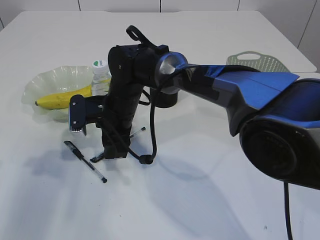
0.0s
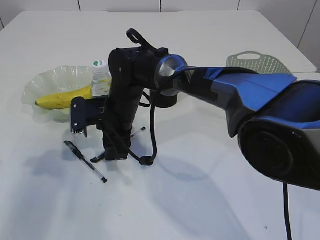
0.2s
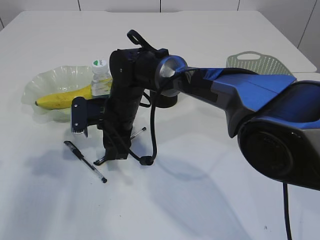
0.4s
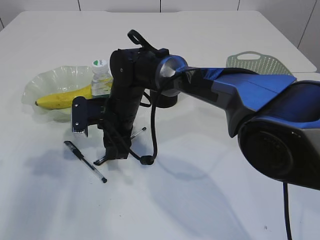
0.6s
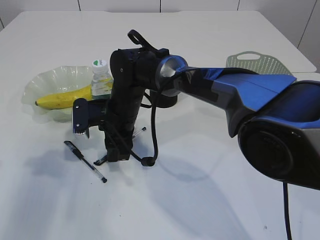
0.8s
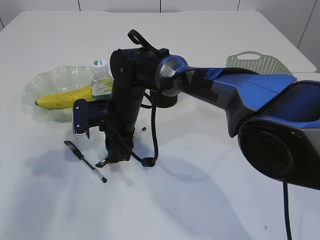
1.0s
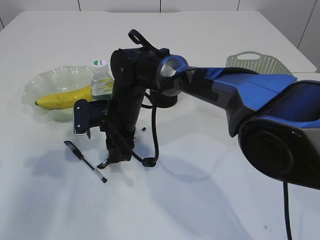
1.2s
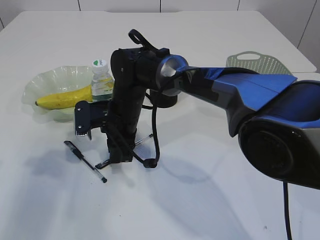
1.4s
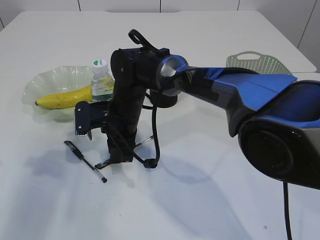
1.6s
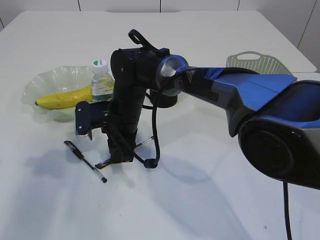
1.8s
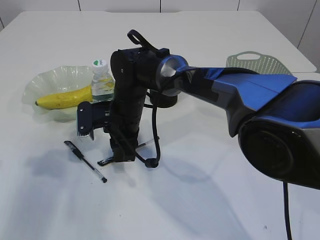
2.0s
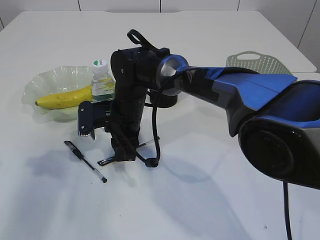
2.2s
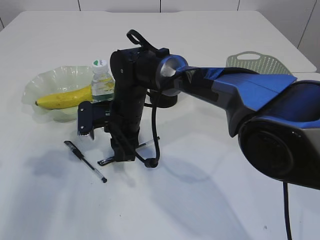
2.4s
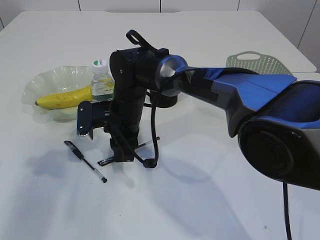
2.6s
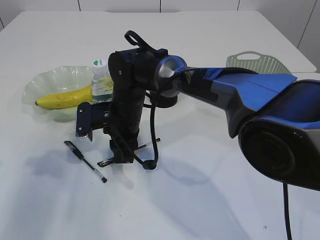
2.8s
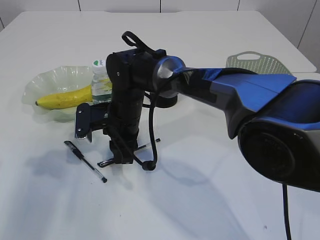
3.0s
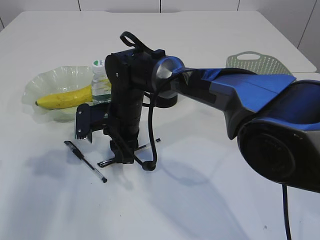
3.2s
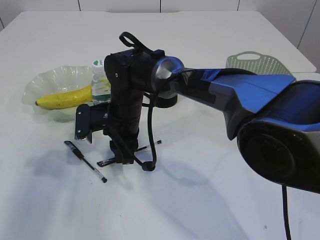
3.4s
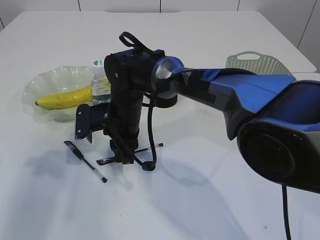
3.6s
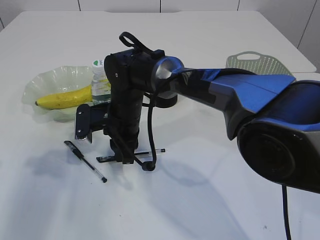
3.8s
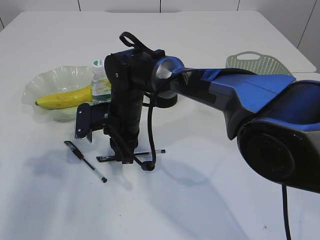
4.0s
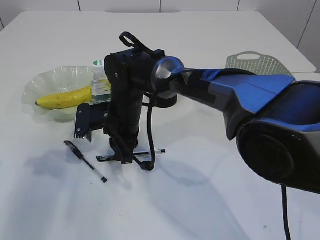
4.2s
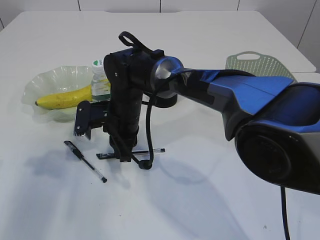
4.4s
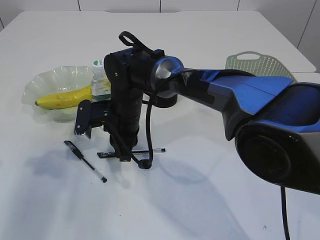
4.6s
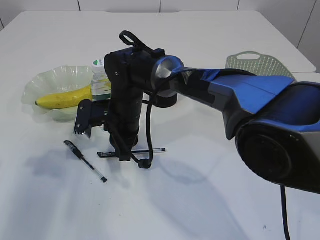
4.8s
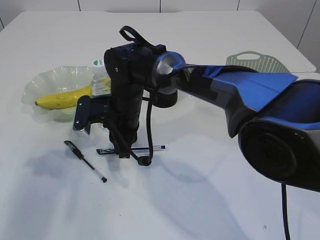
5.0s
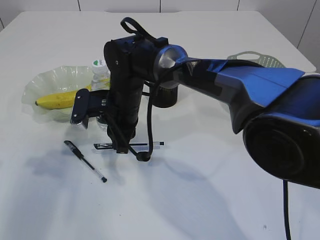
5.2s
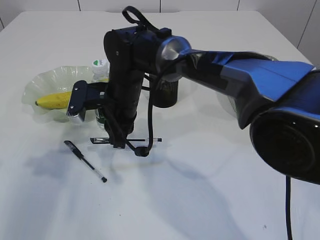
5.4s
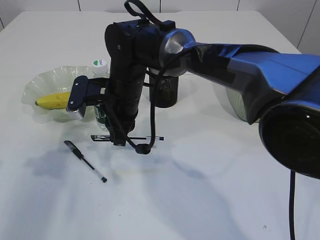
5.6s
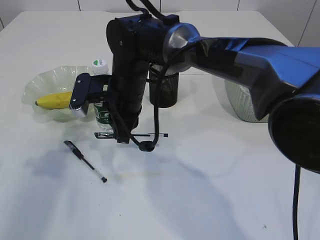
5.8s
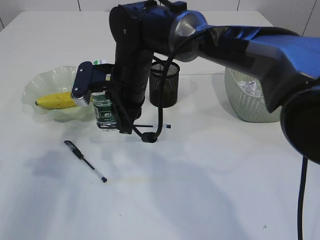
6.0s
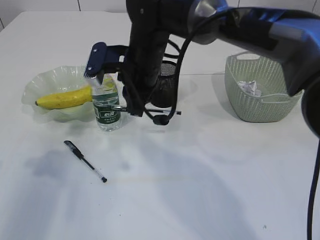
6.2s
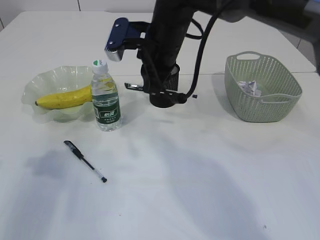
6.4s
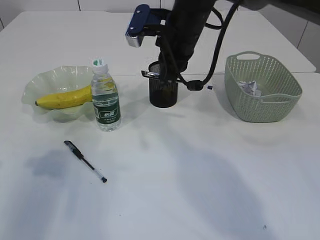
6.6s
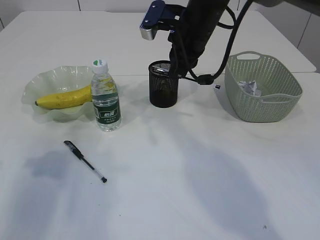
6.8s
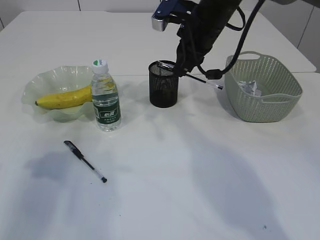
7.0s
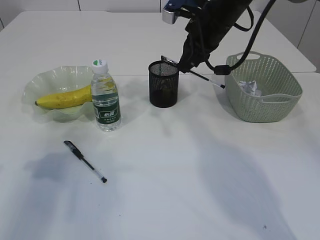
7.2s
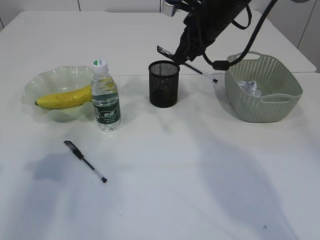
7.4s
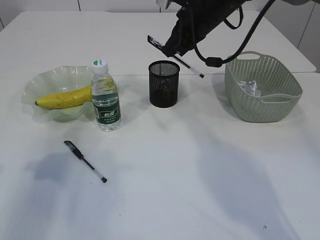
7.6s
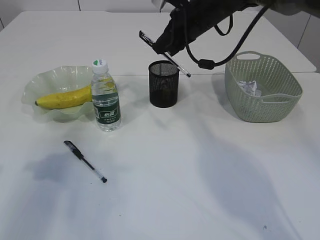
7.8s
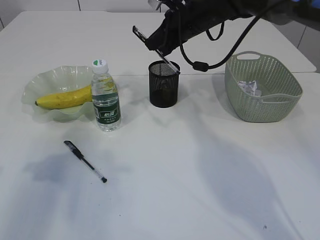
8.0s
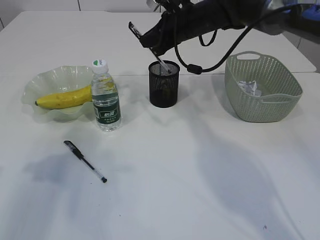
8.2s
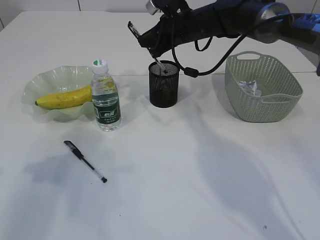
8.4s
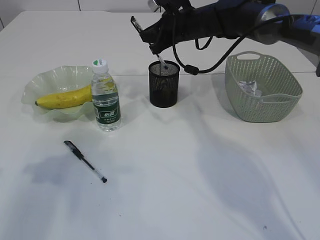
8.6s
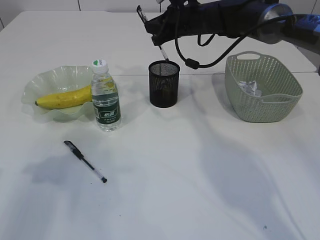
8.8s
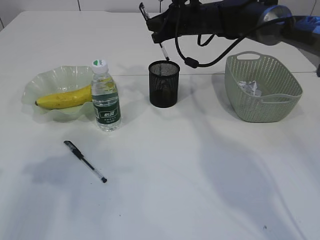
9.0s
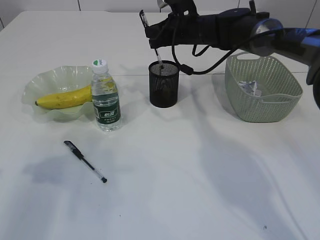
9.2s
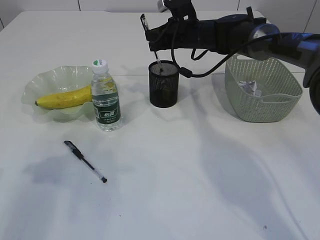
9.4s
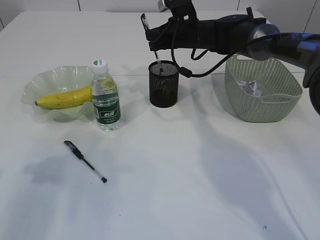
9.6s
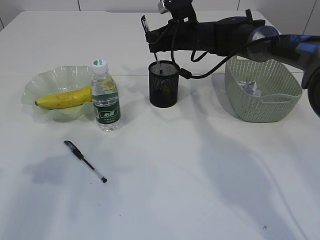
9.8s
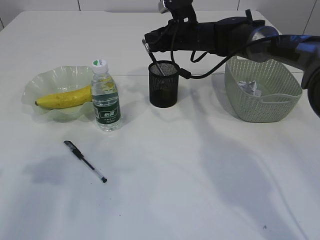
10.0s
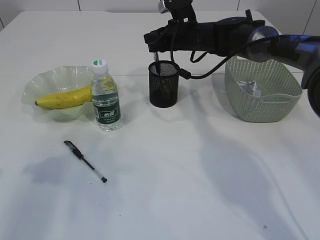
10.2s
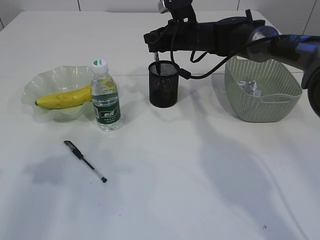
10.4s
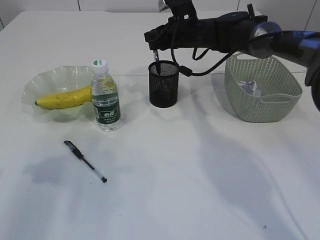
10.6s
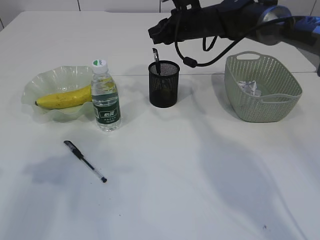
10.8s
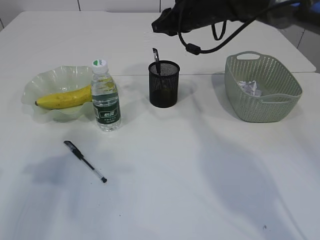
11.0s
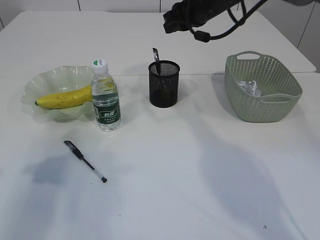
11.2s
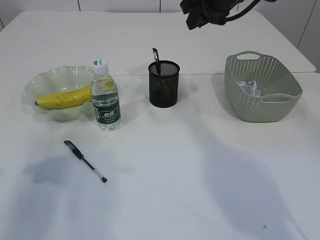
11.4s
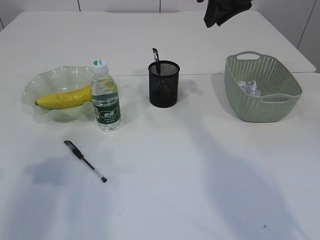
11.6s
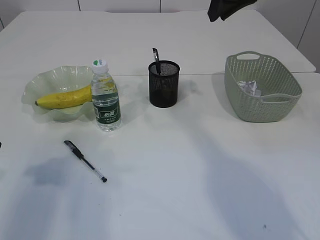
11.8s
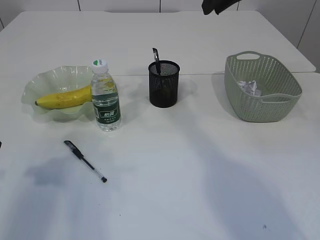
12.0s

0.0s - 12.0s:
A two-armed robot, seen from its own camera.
Step, 0.0s - 5.6s: Pick up the pen with right arm.
Step, 5.8s - 11.0s: Place the pen into the pen holder.
0.0s - 1.6s: Neither gripper changes place.
1.6s - 3.0s: There are only small adjustments of the grippers.
3.0s - 4.4s: Both grippers stay put.
4.4s - 6.0s: The right gripper moves upward, some 10 cm.
6.0s - 7.6s: The right gripper shifts roughly 20 cm to the right, forward and upward.
7.6s - 9.0s: The right gripper travels forward by approximately 5 cm.
9.0s - 10.4s: The grippers move only a little.
10.4s - 12.0s: The right gripper heads upward and backward, covering roughly 20 cm.

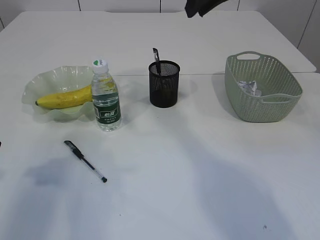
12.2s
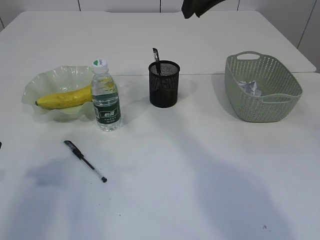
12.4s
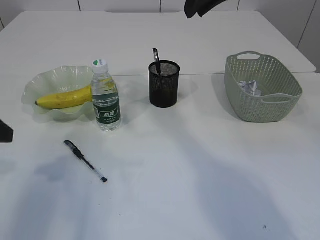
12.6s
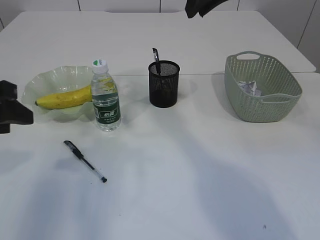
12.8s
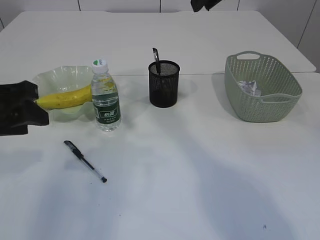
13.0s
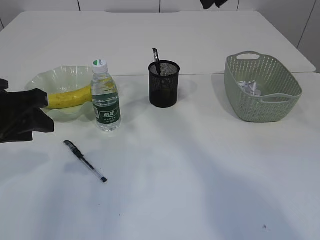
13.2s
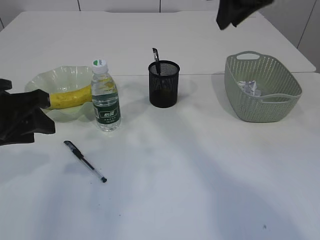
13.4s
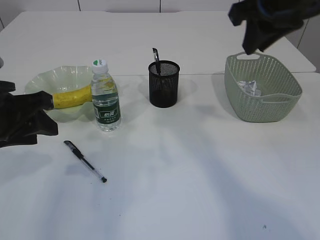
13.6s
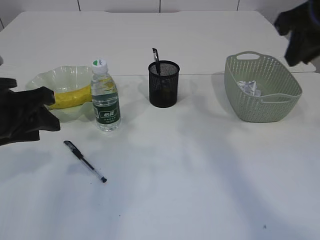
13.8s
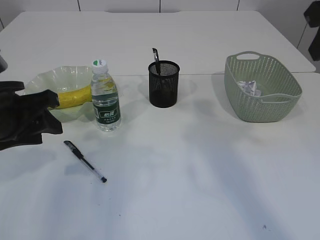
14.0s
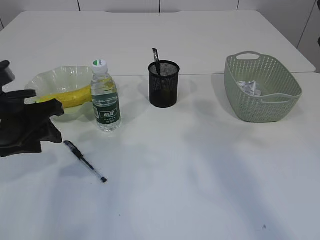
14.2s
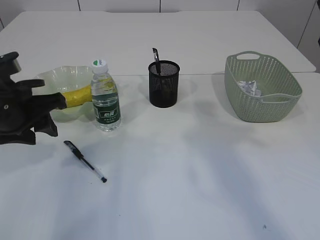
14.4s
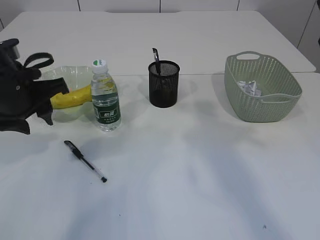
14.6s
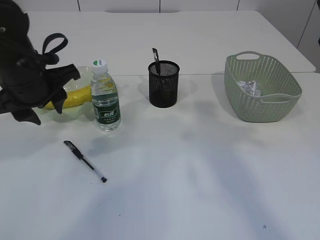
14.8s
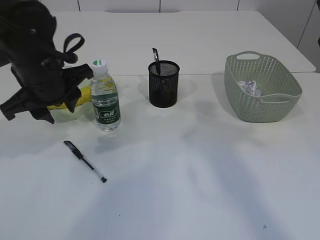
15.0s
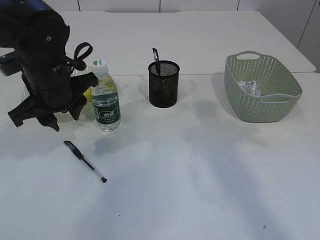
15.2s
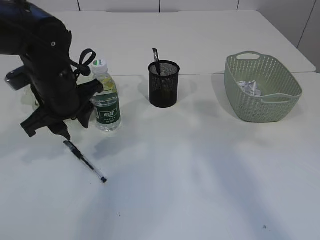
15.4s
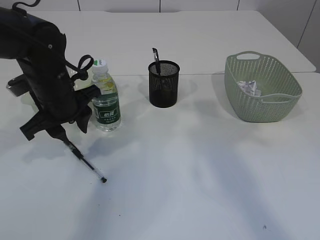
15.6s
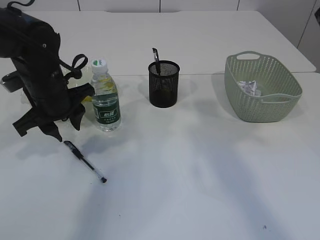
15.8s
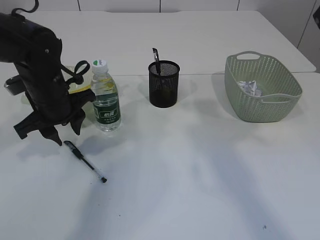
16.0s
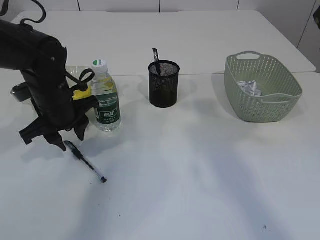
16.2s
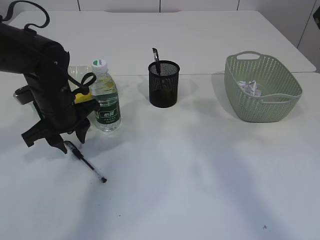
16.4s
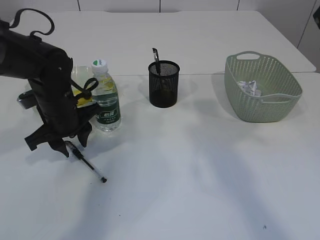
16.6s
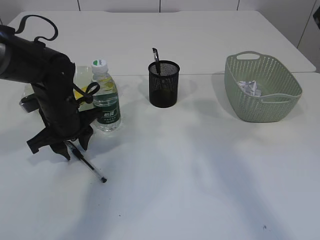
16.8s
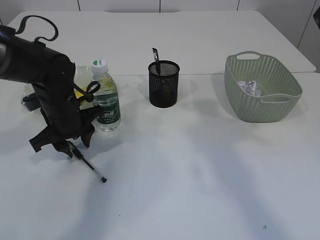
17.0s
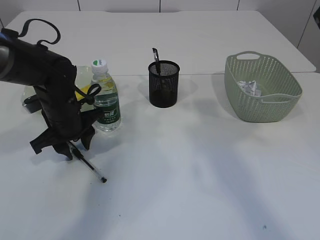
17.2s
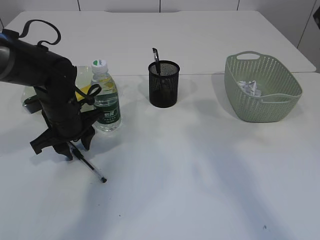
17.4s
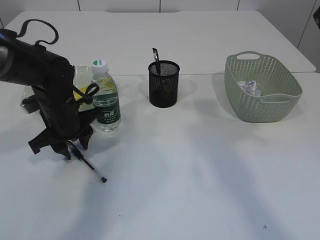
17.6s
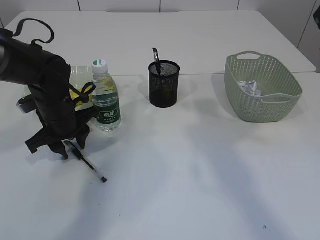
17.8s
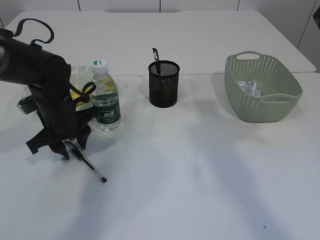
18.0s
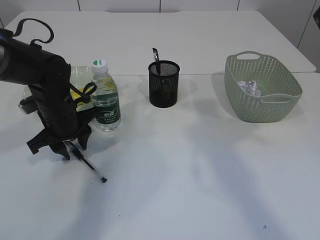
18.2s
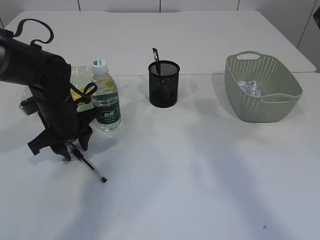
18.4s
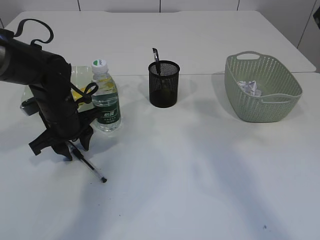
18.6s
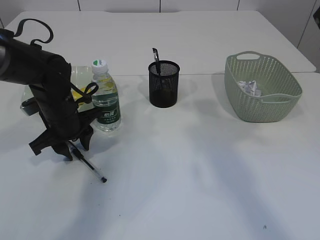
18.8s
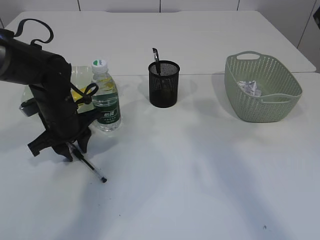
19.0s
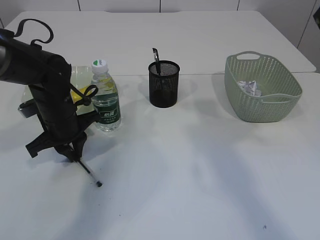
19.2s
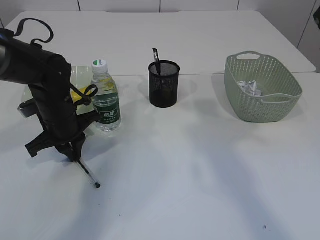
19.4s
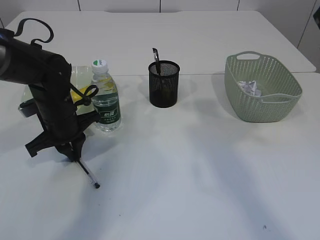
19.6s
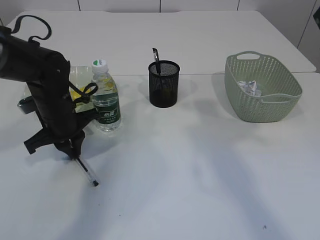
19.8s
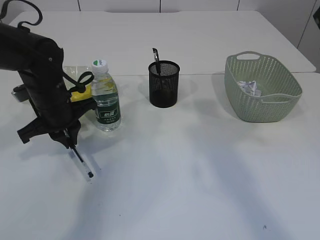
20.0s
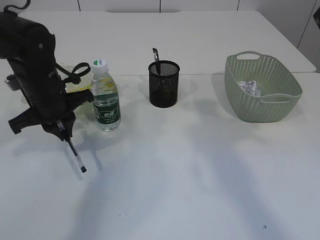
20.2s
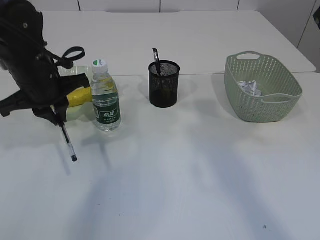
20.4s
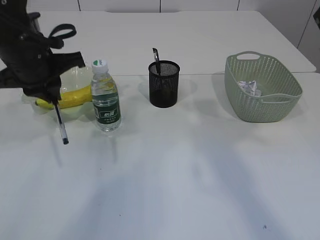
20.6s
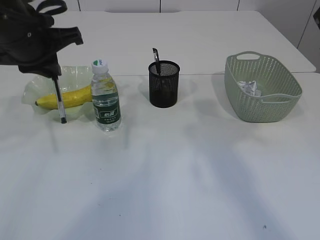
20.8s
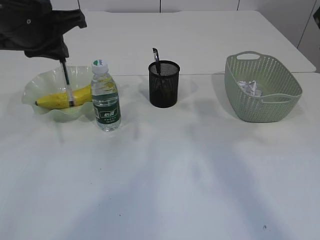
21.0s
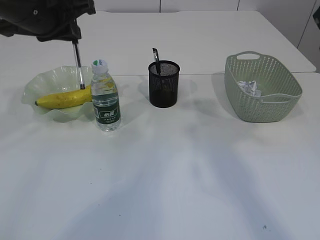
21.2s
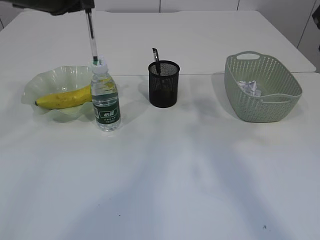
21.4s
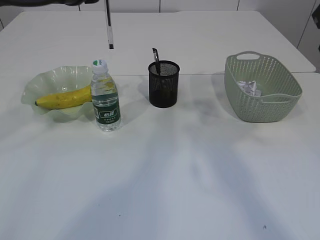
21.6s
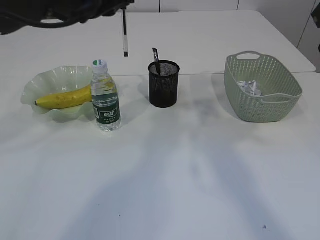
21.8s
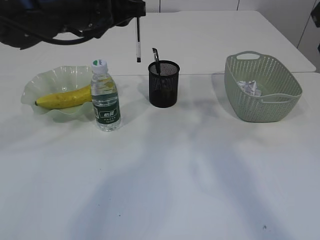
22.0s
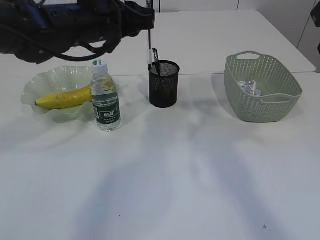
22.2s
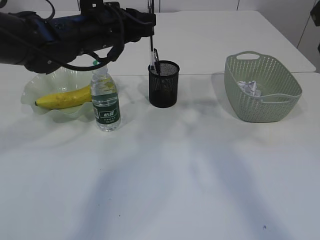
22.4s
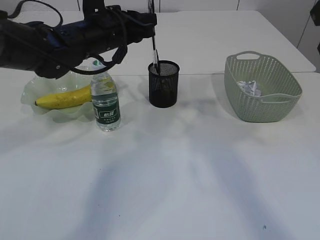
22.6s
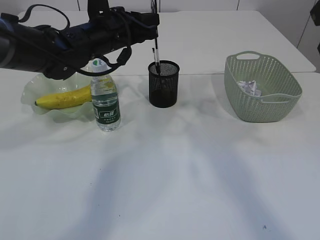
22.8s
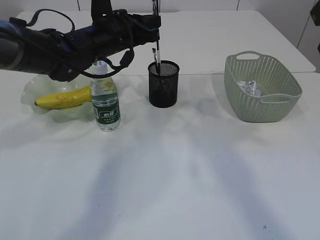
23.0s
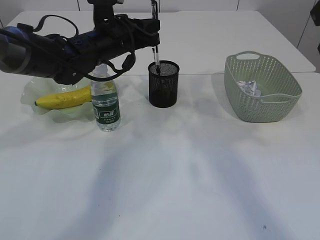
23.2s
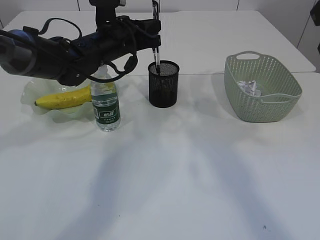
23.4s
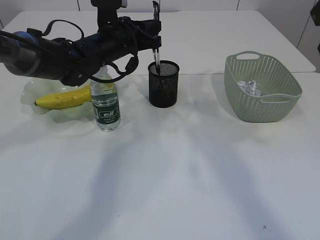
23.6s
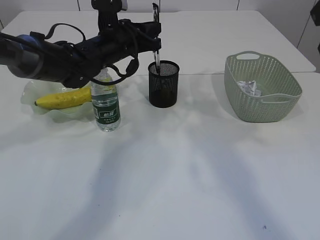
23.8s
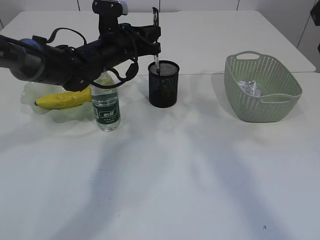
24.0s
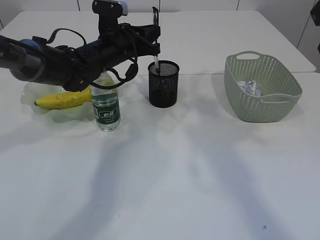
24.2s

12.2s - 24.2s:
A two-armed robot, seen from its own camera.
Step, 12.2s - 20.4s: Pick up the pen with left arm.
12.2s - 13.8s: The right gripper travels to the right and backward by approximately 15 cm; the left gripper shifts approximately 5 cm to the right.
13.8s - 15.2s: The left gripper travels forward and to the right by approximately 10 cm; the right gripper shifts some 5 cm backward.
15.2s - 16.6s: The left gripper travels downward by some 10 cm.
16.6s - 18.2s: The grippers make only small movements.
18.2s - 19.8s: The left gripper closes.
19.8s - 21.2s: The left gripper heads upward, covering some 20 cm.
21.2s - 22.6s: The left gripper moves downward, forward and to the right, approximately 15 cm.
22.6s - 24.2s: The left gripper travels downward by roughly 5 cm.
